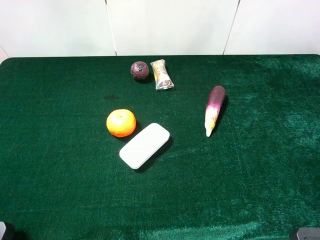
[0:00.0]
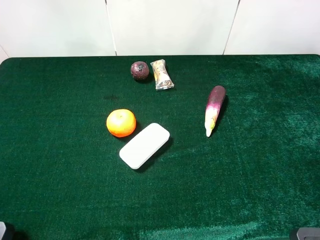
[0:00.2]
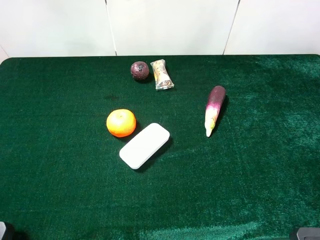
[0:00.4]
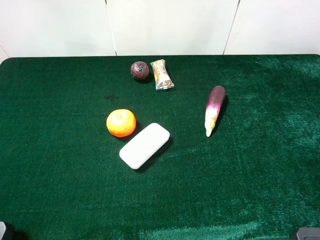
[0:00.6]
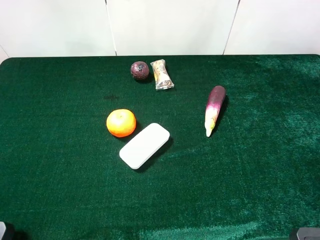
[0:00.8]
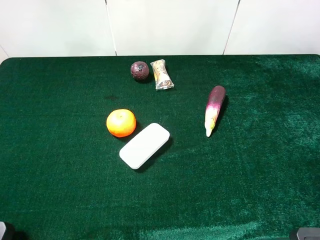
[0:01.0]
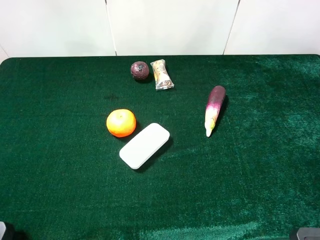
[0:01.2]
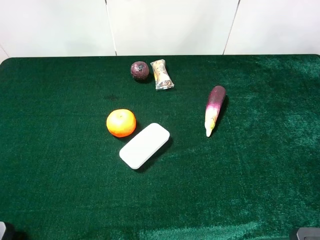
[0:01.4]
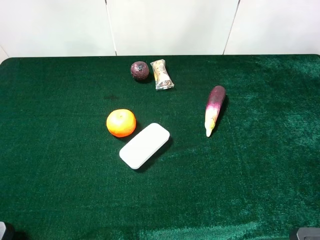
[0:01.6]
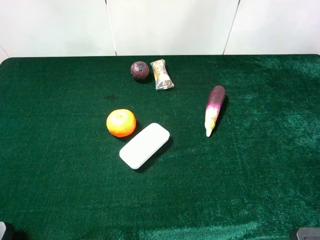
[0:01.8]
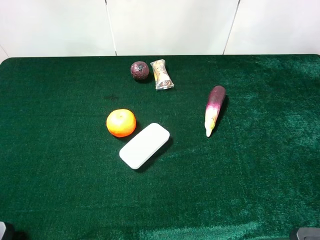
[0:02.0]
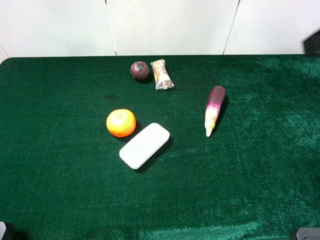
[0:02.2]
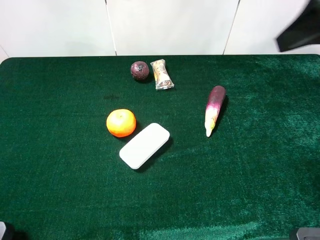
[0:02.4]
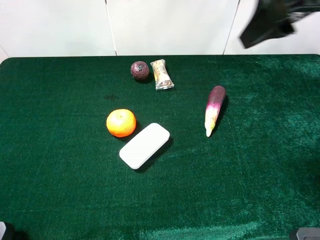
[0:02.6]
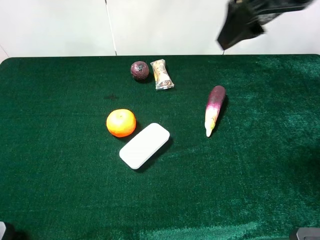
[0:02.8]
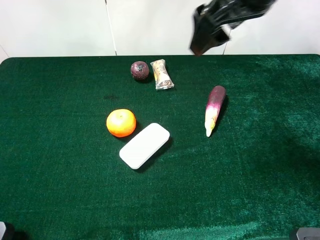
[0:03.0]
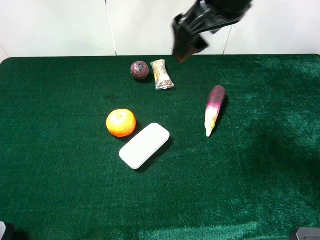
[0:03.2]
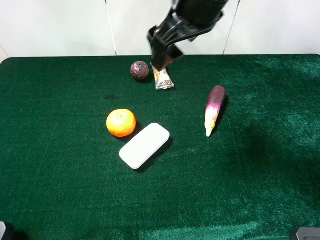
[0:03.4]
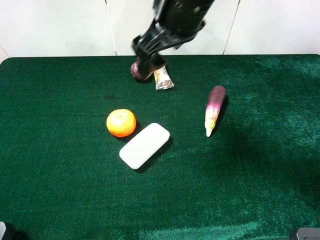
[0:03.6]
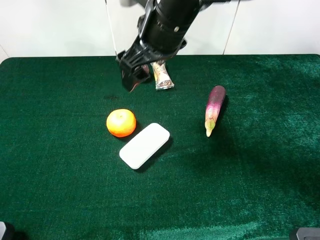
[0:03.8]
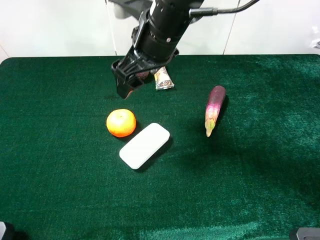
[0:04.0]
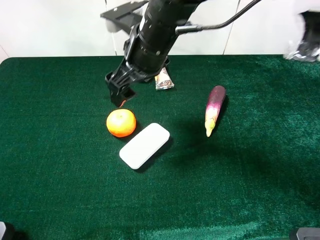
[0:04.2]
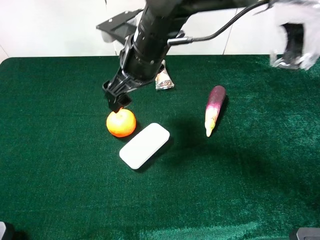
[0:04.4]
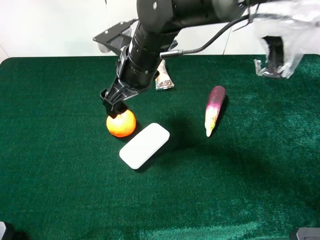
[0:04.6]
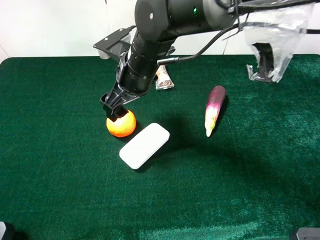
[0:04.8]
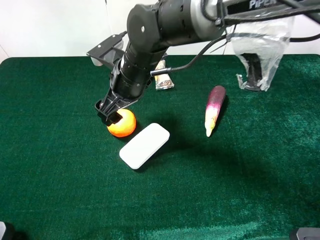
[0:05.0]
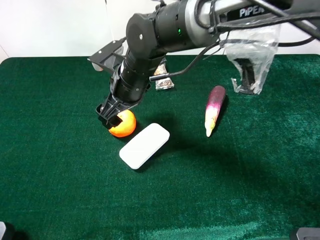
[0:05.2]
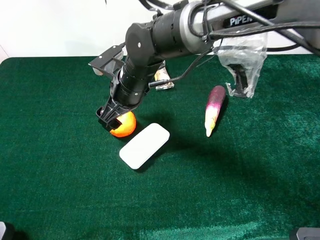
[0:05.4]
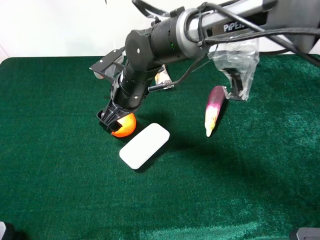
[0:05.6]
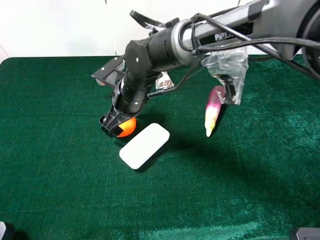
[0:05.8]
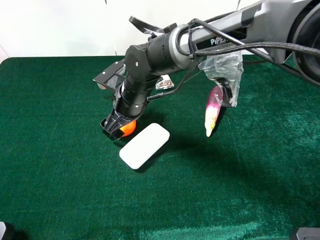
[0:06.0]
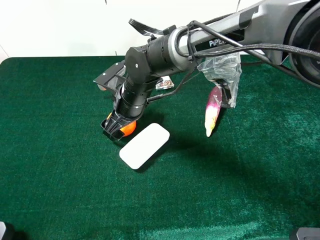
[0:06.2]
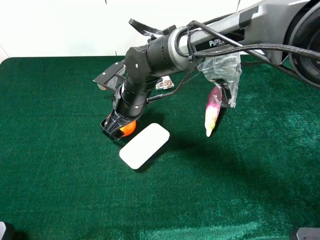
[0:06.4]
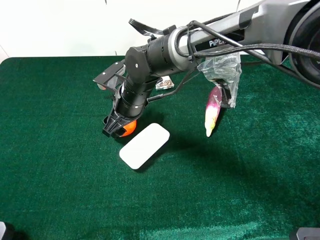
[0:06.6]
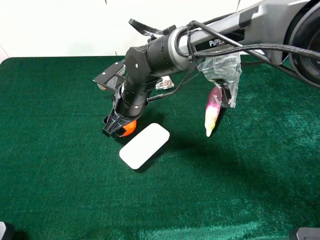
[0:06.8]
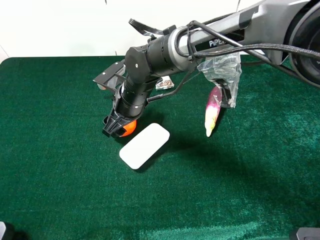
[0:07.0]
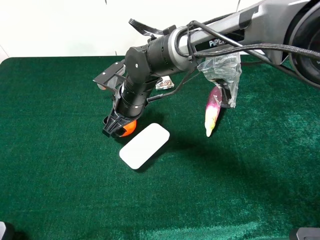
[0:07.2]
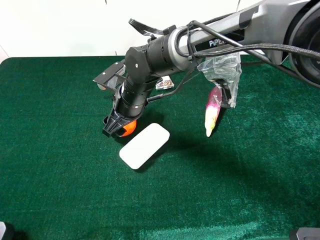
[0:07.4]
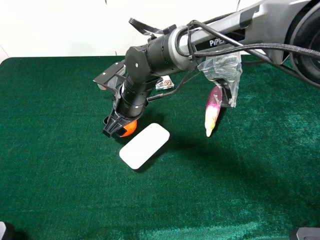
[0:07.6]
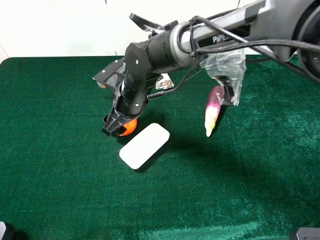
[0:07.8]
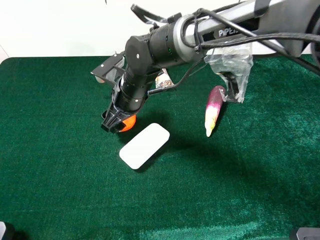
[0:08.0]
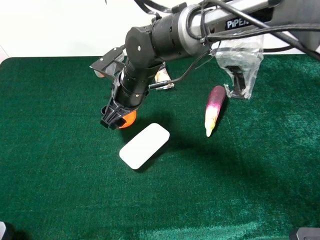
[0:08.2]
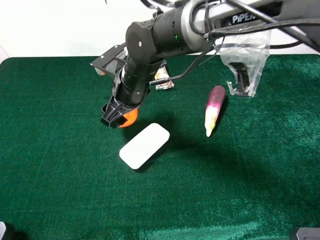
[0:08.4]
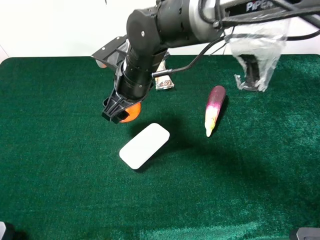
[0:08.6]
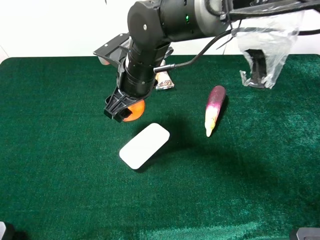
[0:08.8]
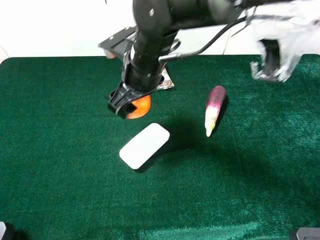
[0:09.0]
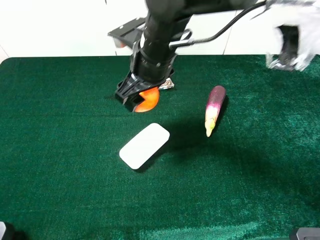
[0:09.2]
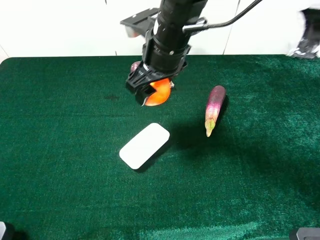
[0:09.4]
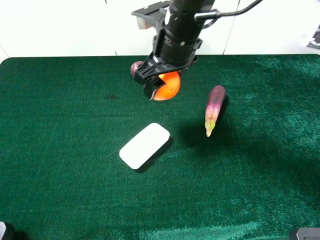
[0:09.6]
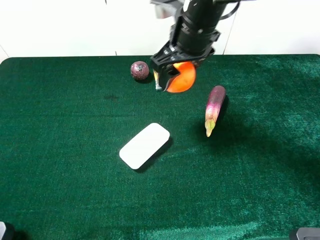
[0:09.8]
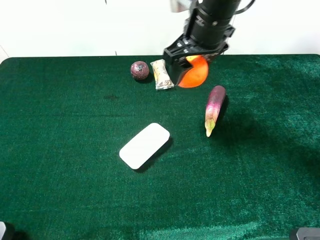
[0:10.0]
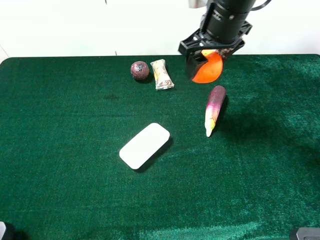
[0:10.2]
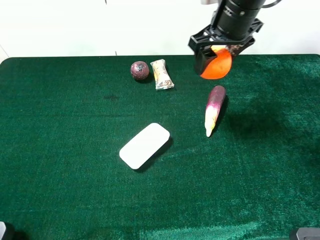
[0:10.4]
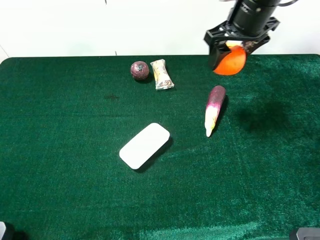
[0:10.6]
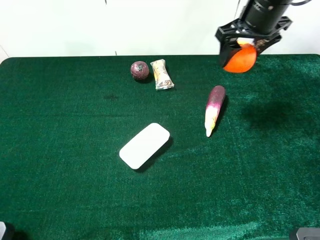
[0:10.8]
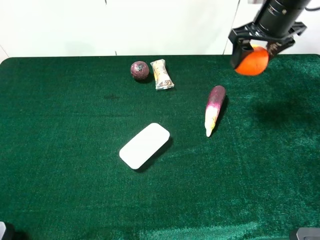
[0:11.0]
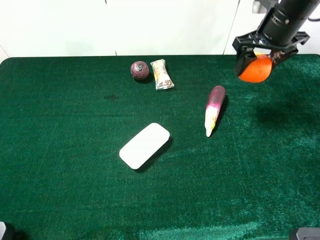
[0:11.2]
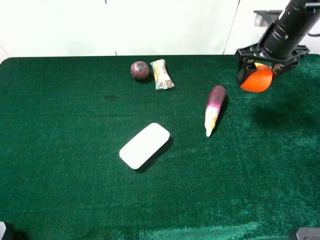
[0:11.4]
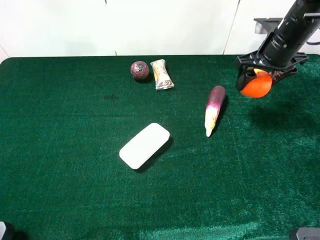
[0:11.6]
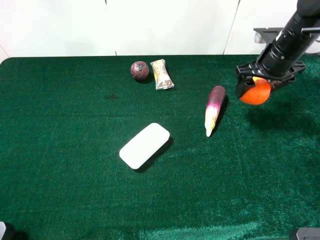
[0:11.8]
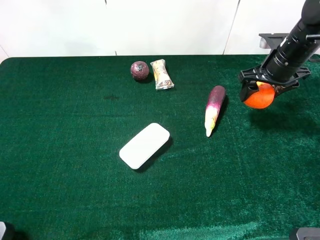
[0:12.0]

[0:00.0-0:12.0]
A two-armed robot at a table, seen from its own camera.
Task of the whole recording: the gripper move the object.
Step, 0:00.0 to 0:06.8: Grasp the orange with the right gripper.
0:01.6 to 0:03.0: The right gripper heads forward and to the left, covering some 25 cm.
0:03.0 to 0:04.4: The right gripper moves to the left and downward, approximately 20 cm.
0:04.4 to 0:06.0: The right gripper travels downward by roughly 10 cm.
0:06.0 to 0:07.6: The right gripper closes its fingers.
0:07.6 to 0:09.0: The right gripper goes roughly 10 cm upward.
0:09.0 to 0:10.4: The right gripper moves to the right, upward and forward, roughly 15 cm.
0:10.4 to 0:12.0: The right gripper travels to the right and downward by about 15 cm.

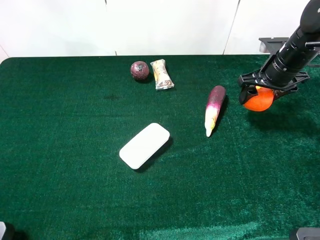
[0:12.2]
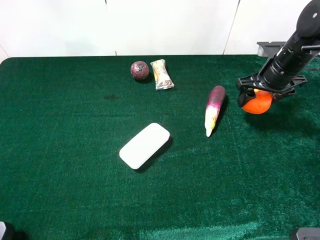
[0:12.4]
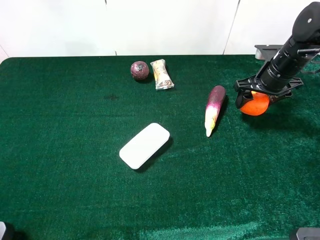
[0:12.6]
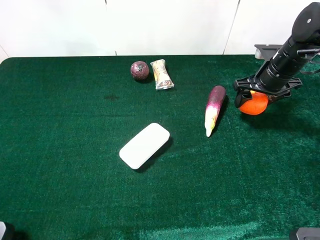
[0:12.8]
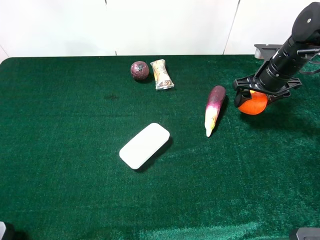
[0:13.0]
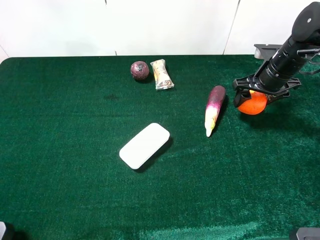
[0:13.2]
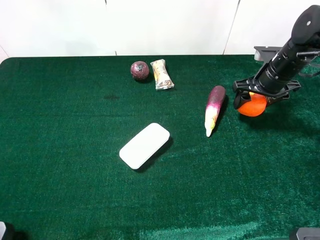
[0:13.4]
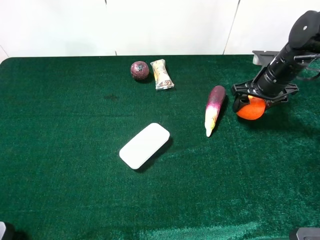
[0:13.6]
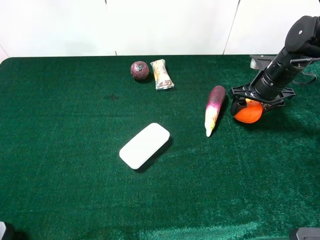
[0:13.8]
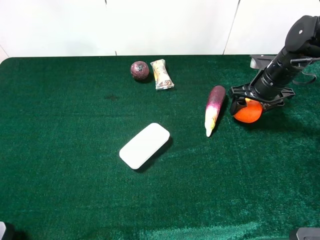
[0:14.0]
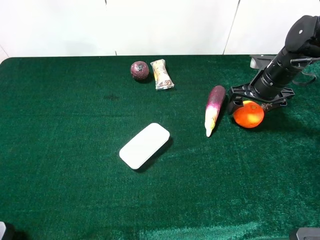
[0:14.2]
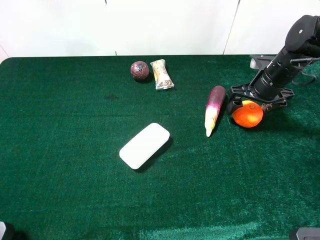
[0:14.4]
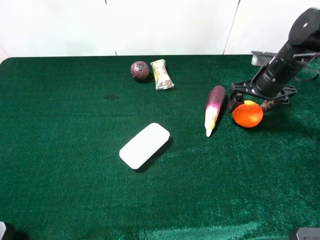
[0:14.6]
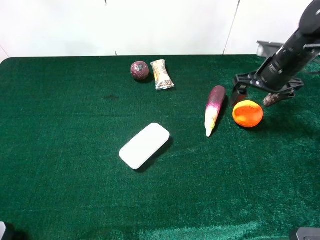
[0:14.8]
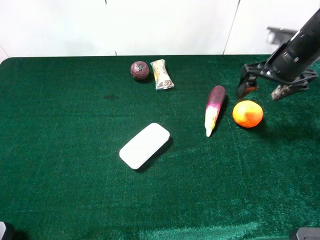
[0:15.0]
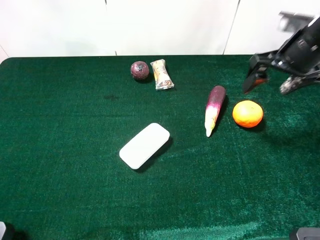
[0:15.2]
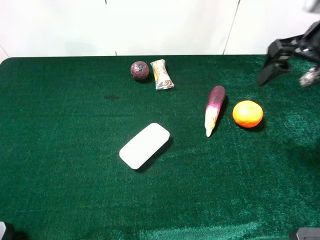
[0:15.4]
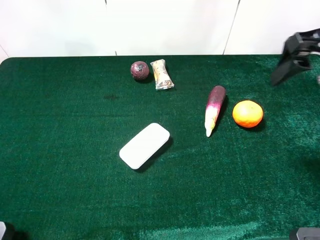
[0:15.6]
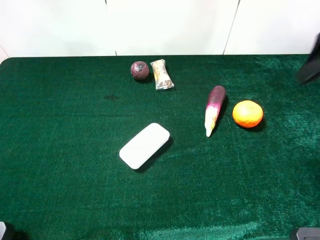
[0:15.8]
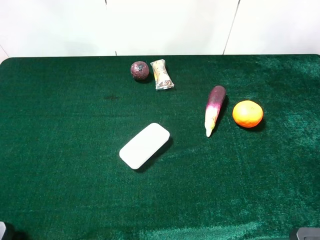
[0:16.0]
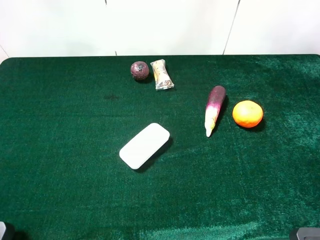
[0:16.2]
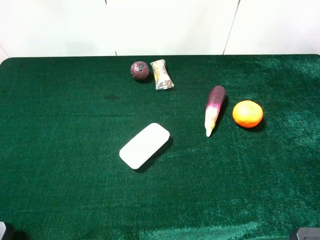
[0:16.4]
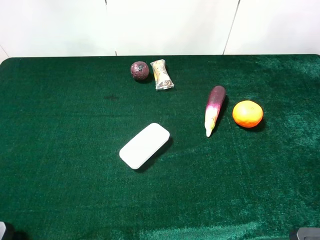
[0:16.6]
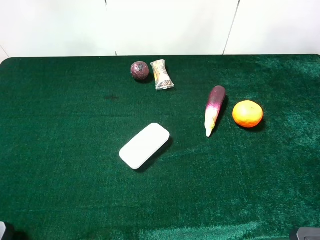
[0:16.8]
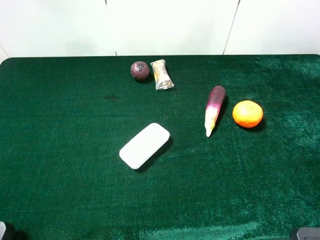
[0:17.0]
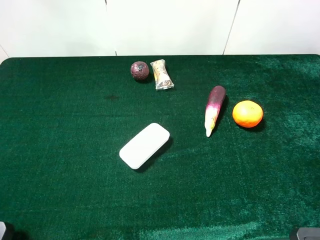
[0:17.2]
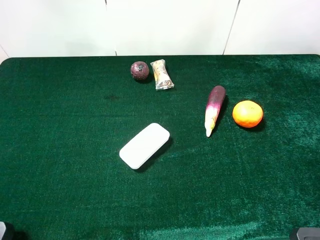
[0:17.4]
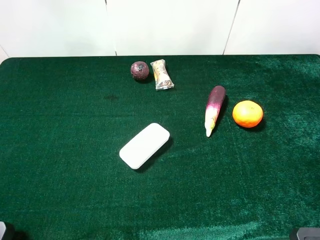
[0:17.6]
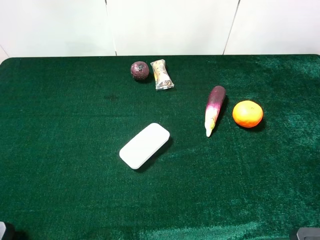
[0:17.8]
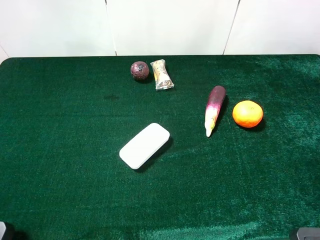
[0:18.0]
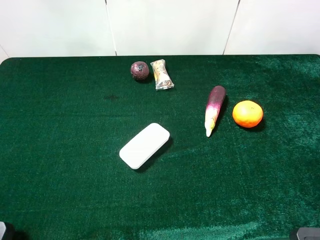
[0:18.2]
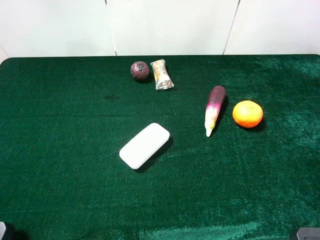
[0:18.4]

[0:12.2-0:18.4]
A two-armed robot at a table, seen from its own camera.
Task of the whole recording: the gripper move the object.
Step, 0:12.2 to 0:14.6: Place the ornage on the table with the right gripper.
0:12.2 to 0:13.8: The grippers make only small movements.
0:13.8 to 0:15.4: The right gripper moves upward and backward, approximately 20 cm, and opens.
0:15.4 to 0:16.8: The right gripper heads backward, covering about 25 cm.
